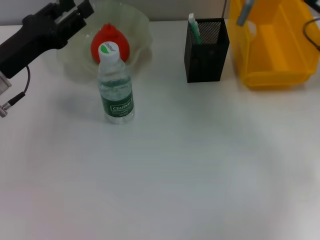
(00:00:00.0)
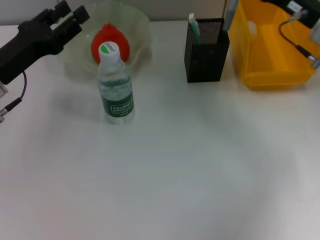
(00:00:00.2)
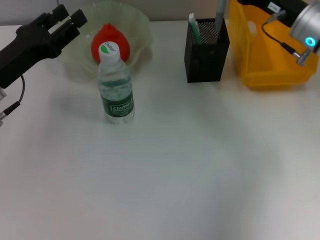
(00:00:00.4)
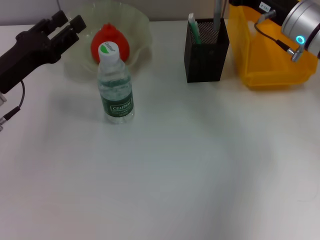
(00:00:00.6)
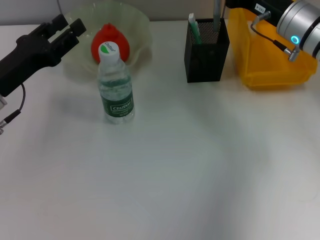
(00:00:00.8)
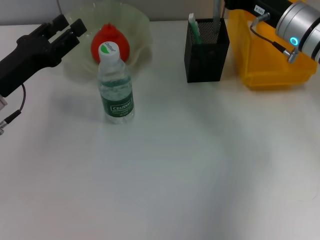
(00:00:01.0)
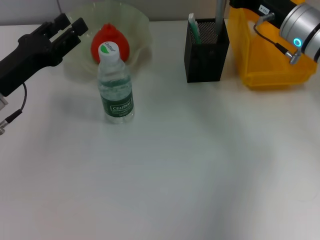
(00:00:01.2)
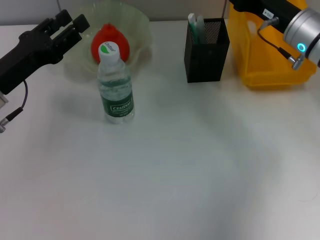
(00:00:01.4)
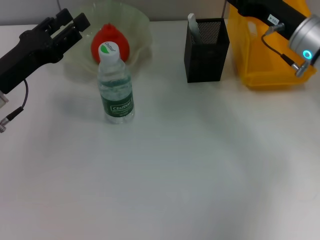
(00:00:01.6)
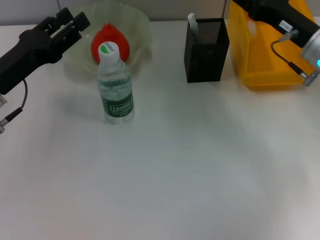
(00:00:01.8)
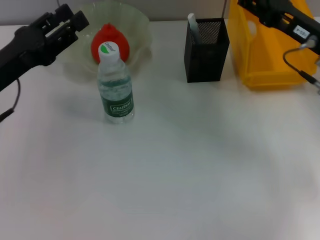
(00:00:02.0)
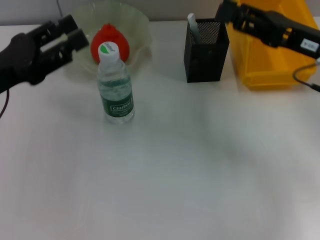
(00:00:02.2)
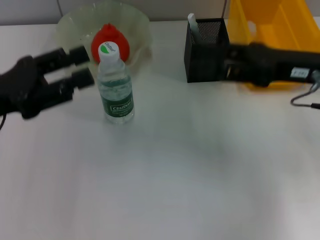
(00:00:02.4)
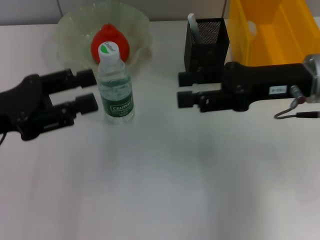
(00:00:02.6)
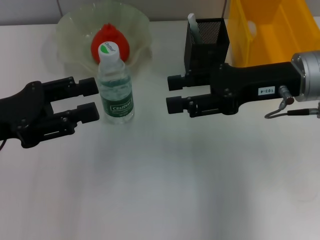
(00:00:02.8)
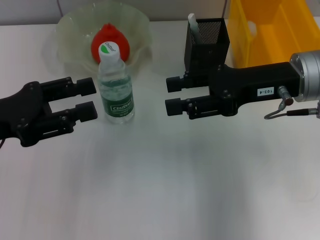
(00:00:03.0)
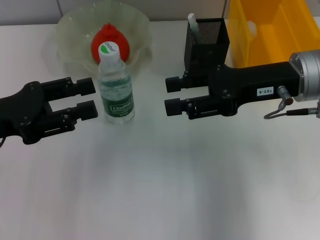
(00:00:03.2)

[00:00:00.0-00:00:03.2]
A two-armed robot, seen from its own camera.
Step, 00:00:00.0 to 00:00:01.6: Place the gray glue into the pen holder with the right hand.
00:00:00.0 to 00:00:01.6: The right gripper ends up some 5 cm from where it was, and opens up.
00:00:01.6 to 00:00:03.2: The right gripper heads backward and upward, covering about 10 cm. Meanwhile the left gripper ends up about 5 cm from where it was.
